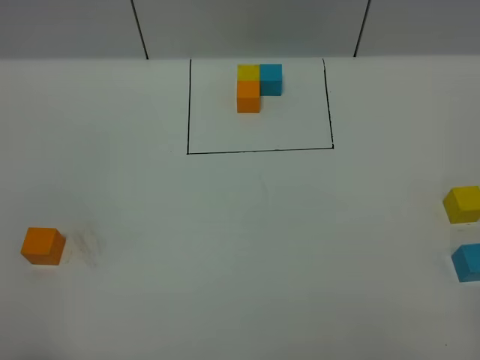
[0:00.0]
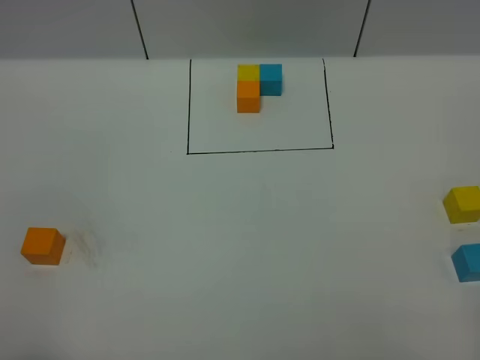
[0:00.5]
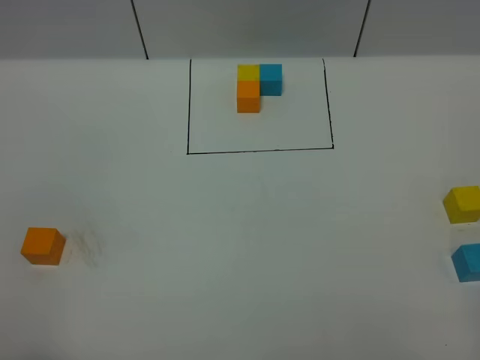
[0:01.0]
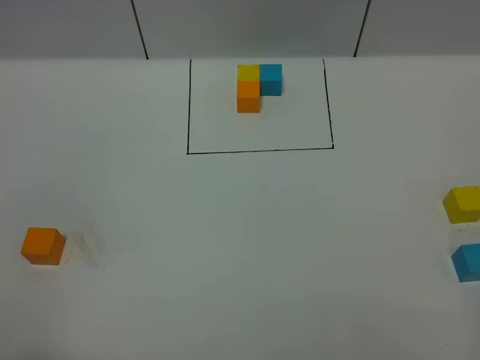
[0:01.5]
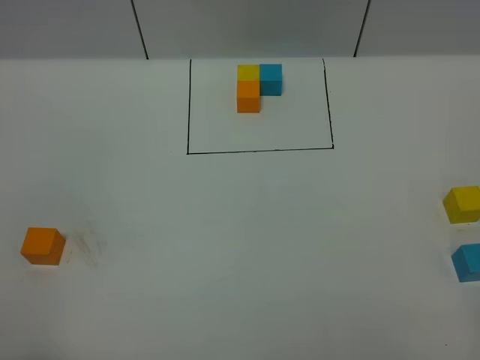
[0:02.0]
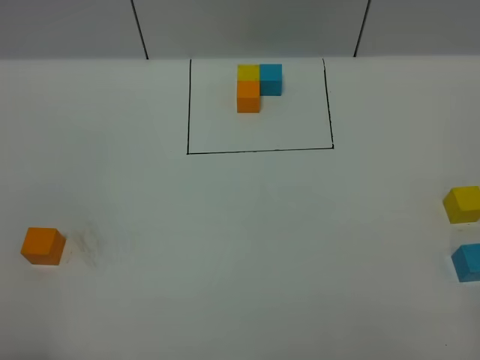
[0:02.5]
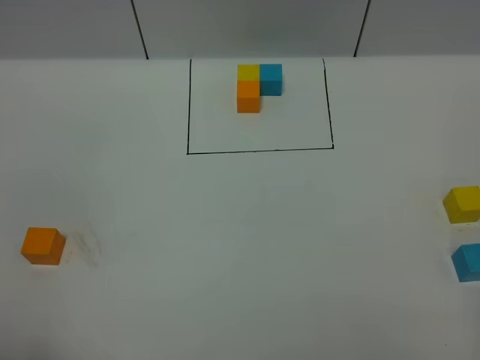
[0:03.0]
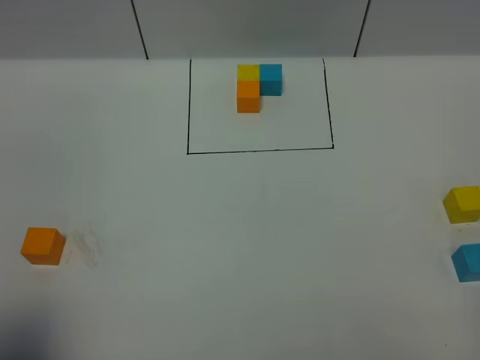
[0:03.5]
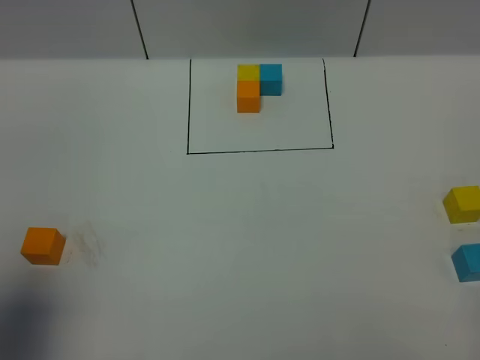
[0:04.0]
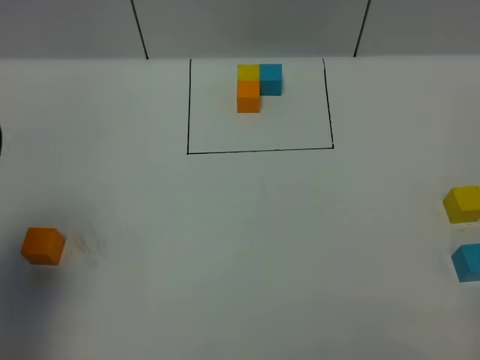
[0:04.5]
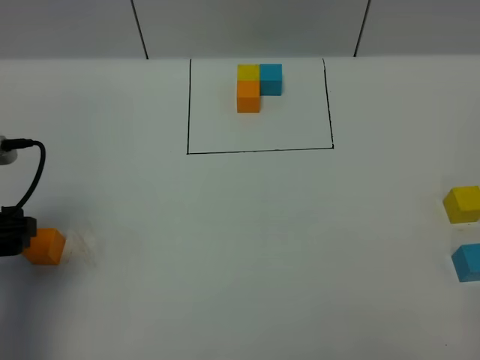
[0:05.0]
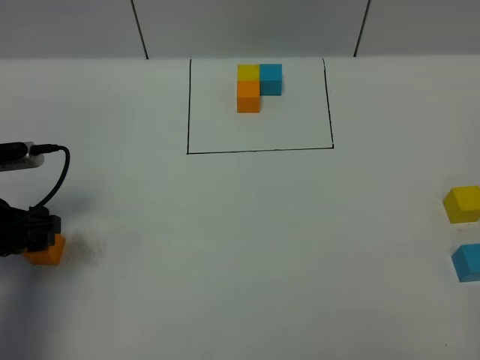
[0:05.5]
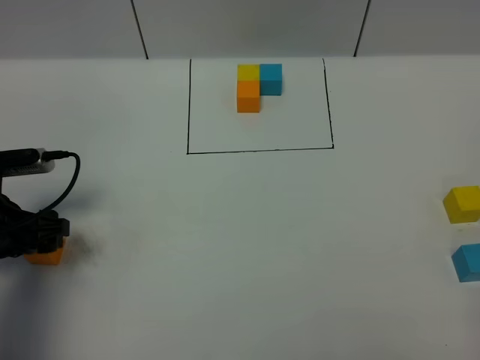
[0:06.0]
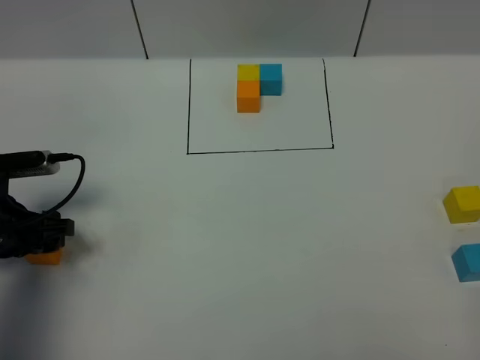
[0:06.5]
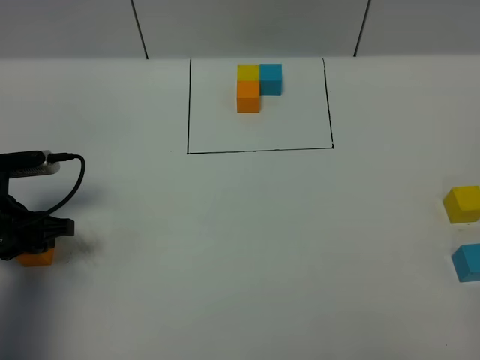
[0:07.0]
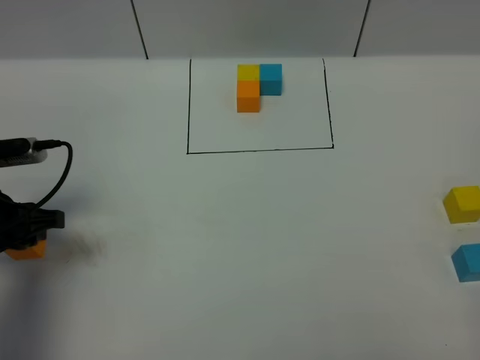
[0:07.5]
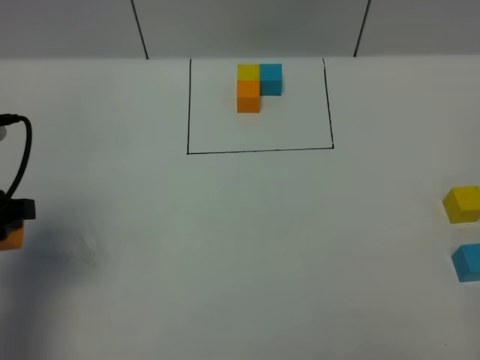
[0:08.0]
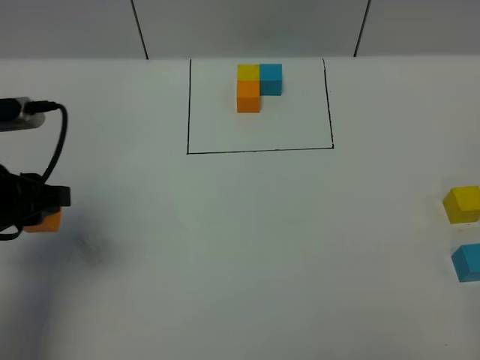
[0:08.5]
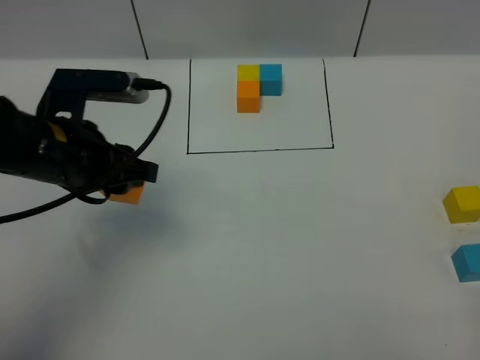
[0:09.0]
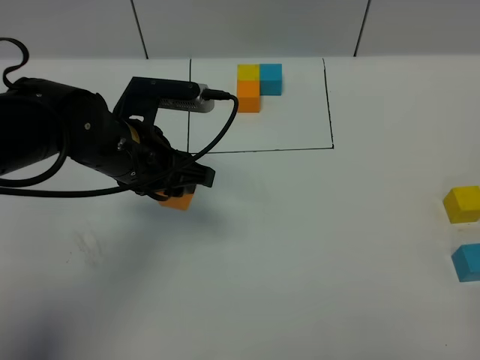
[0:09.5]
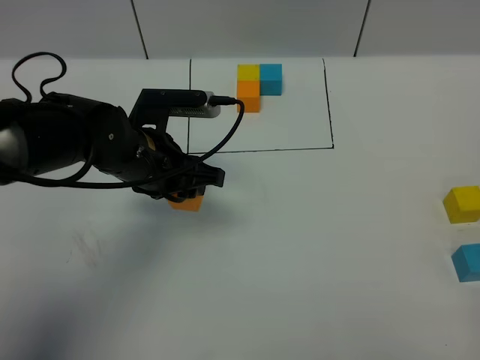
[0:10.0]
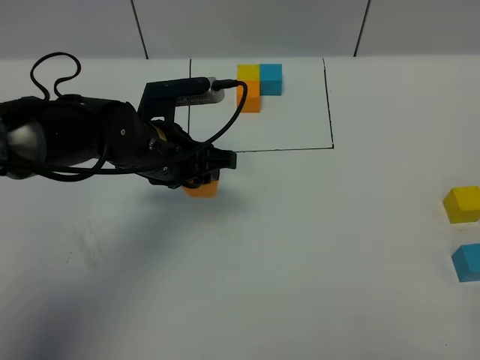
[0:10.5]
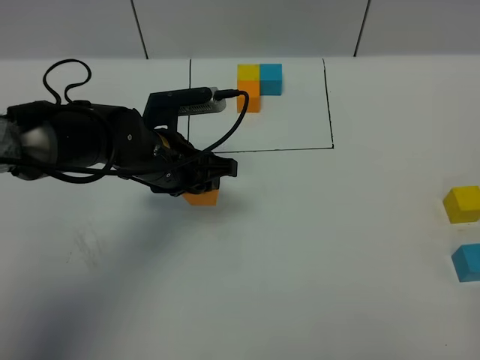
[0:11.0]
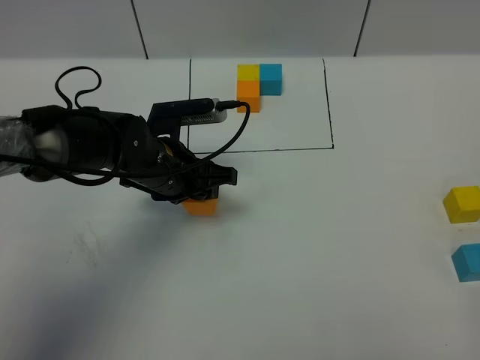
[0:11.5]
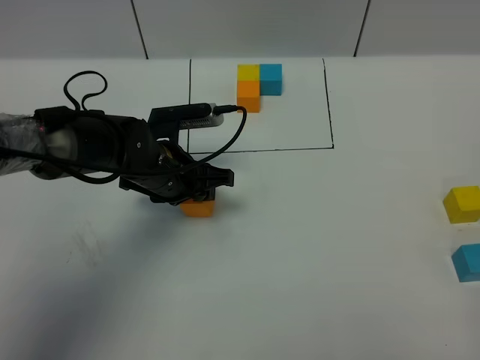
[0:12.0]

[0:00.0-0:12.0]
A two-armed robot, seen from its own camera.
Task of the whole recording: According to the building block template in front, assemble the scattered blocks together.
0.0 to 2.0 s: Both grippers stay put.
2.0 to 4.0 s: The left gripper goes some 10 cm forward, and opens.
4.0 to 6.0 s: The left gripper moves downward and forward, about 25 cm.
6.0 to 8.0 s: The left gripper heads upward, covering about 10 cm, and closes up.
8.0 to 10.0 s: The left gripper moves to the right and forward, about 20 cm.
10.0 to 12.0 s: The left gripper moves downward, some 5 cm.

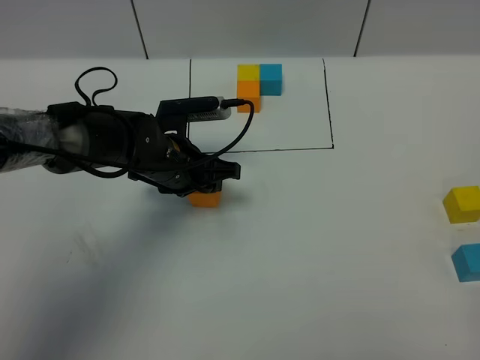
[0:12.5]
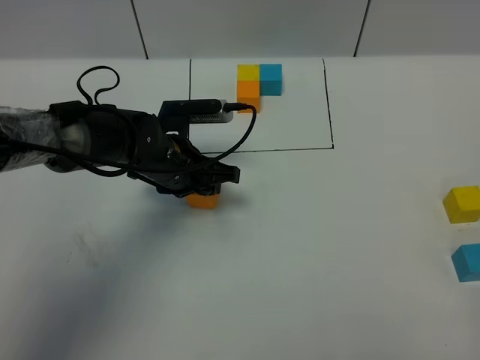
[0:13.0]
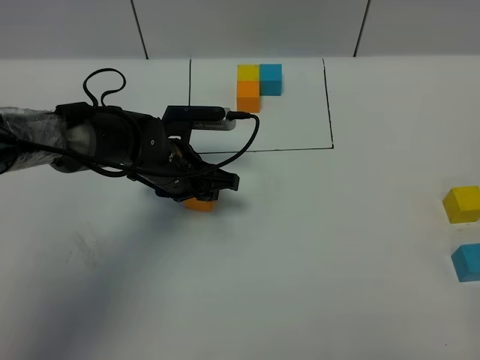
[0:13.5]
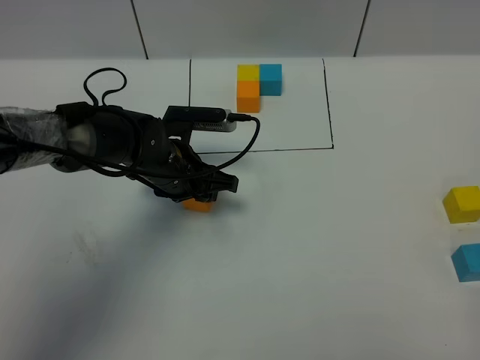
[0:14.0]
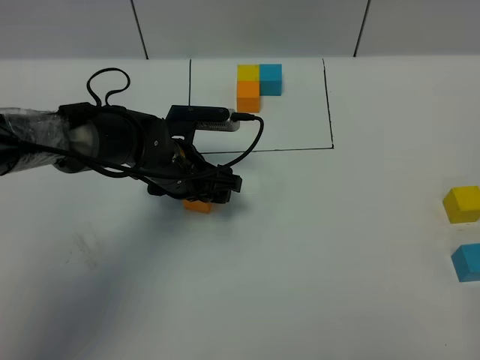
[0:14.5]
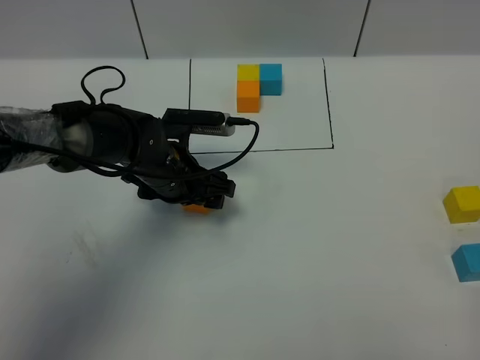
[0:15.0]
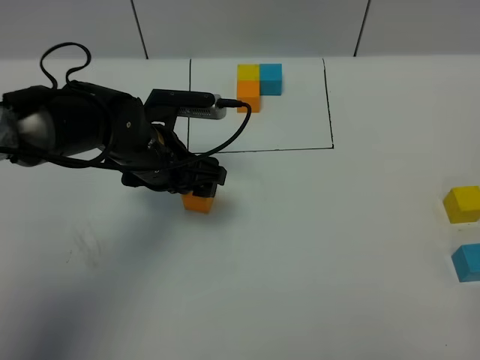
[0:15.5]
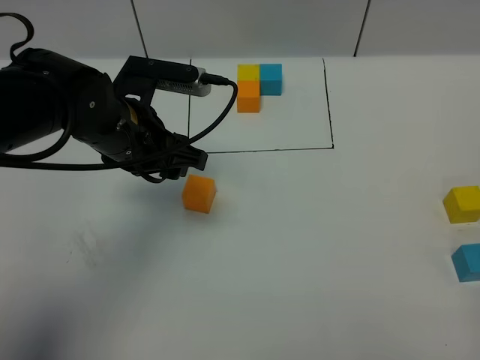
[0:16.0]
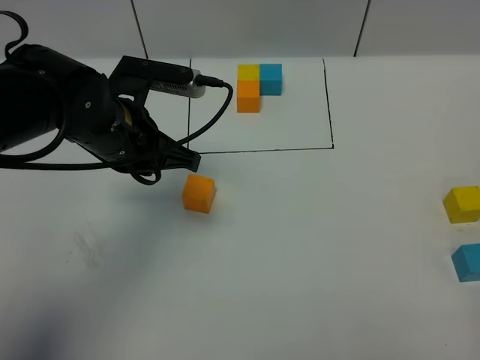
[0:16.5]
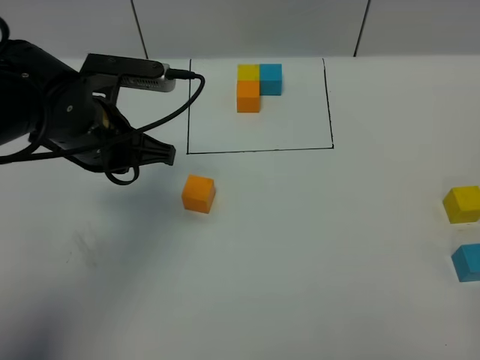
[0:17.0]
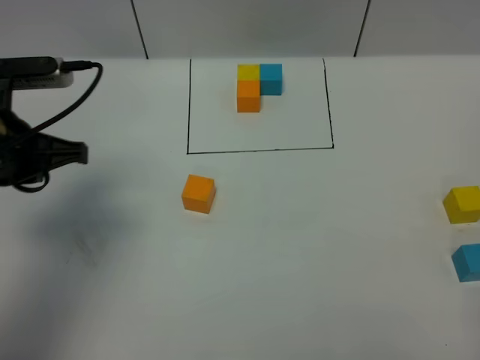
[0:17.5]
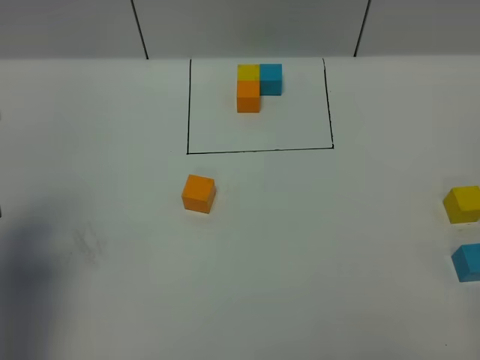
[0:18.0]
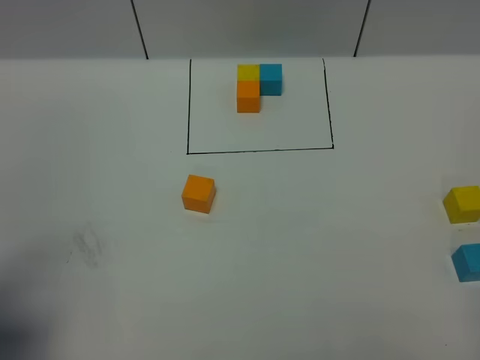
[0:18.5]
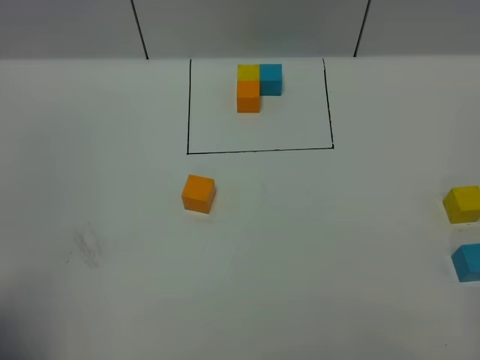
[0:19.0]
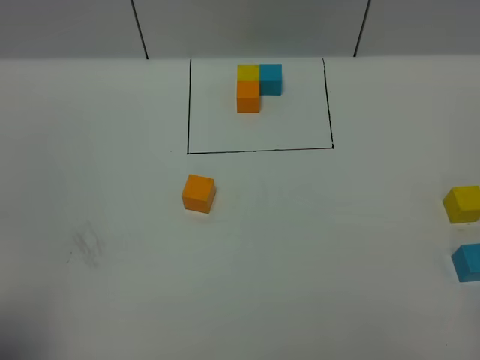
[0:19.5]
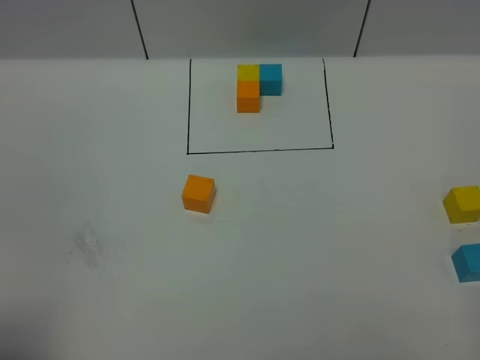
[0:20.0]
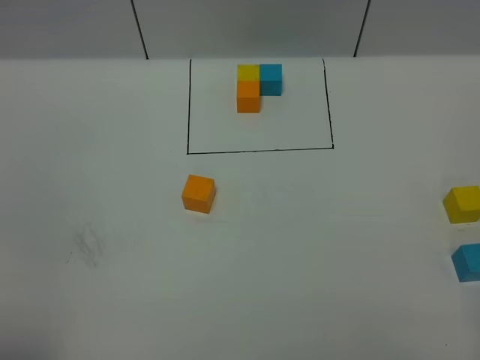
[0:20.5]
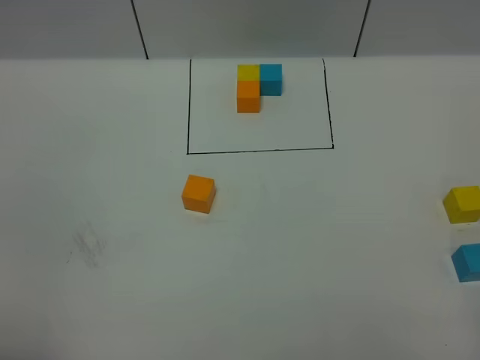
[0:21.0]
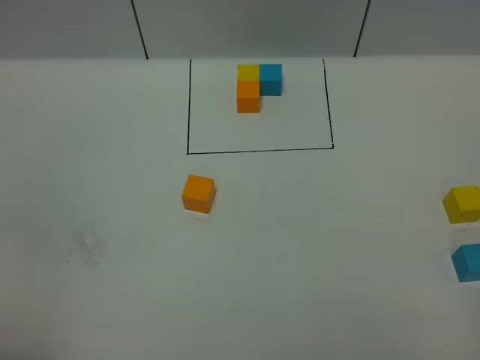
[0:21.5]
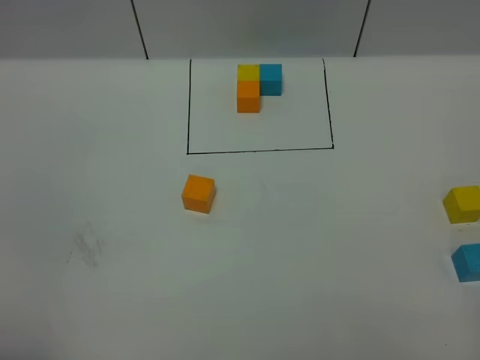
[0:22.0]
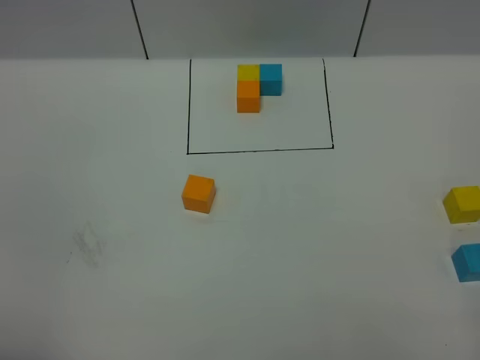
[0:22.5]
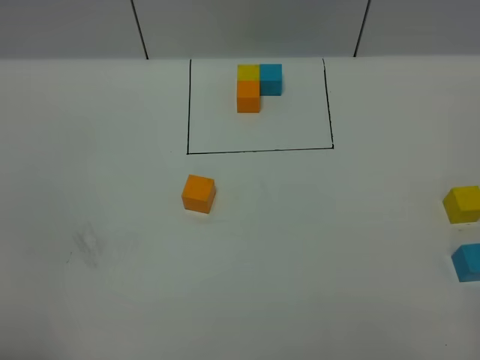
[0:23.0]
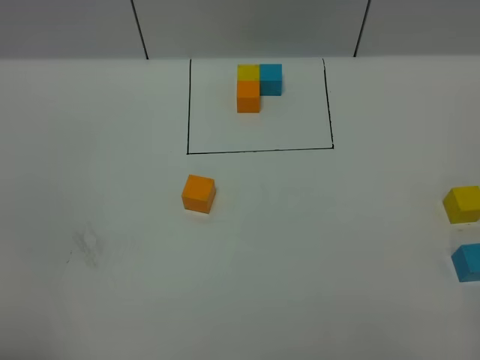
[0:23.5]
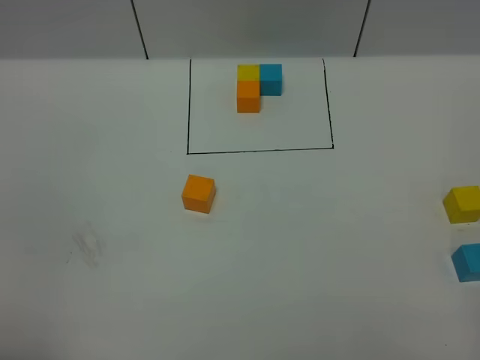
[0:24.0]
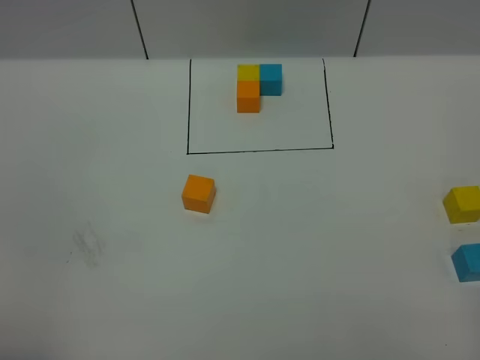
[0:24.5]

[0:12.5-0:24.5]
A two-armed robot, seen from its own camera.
Task of the whole recording: According to the building block template in front, assemble the scattered blocks together.
Step, 12.5 to 15.0 s: Put the orange cube in the center of the table.
12.5 to 14.5 s: The left gripper opens up.
14.5 to 16.5 s: The left gripper shifts some 10 cm upward, and closes.
16.5 to 18.5 s: The left gripper shifts roughly 30 cm backward and to the left.
18.5 to 20.5 s: The left gripper is displaced backward by approximately 10 cm.
20.5 to 24.5 s: Neither gripper changes place.

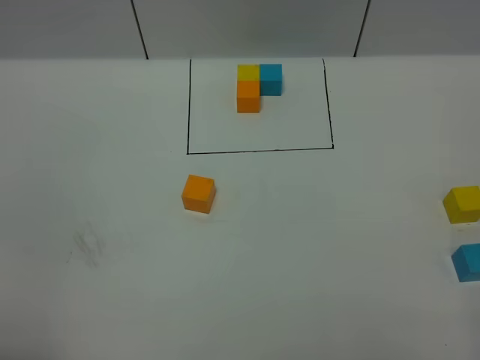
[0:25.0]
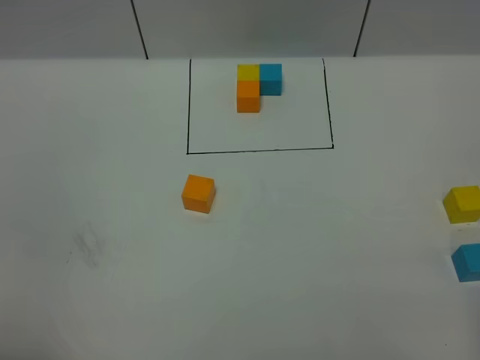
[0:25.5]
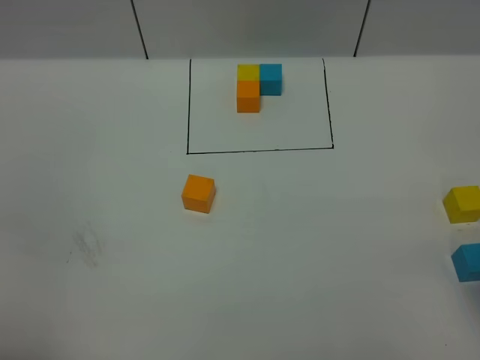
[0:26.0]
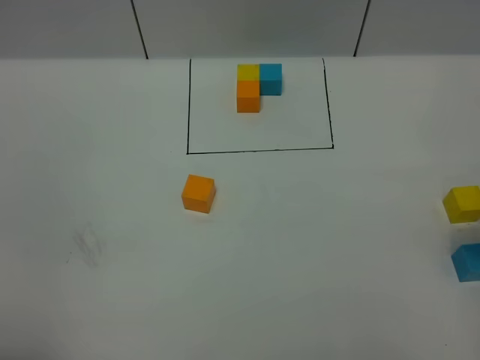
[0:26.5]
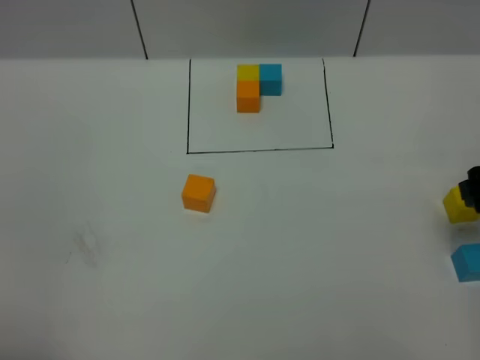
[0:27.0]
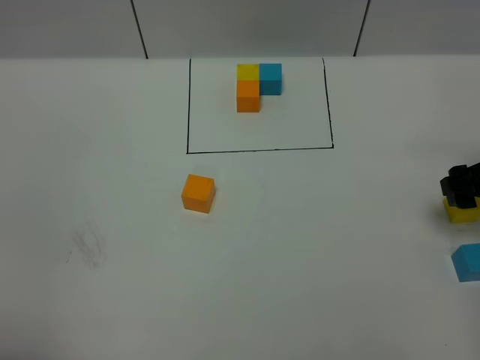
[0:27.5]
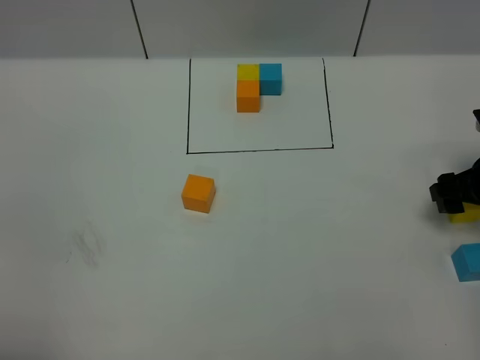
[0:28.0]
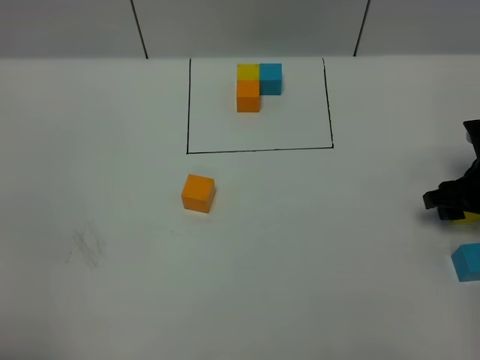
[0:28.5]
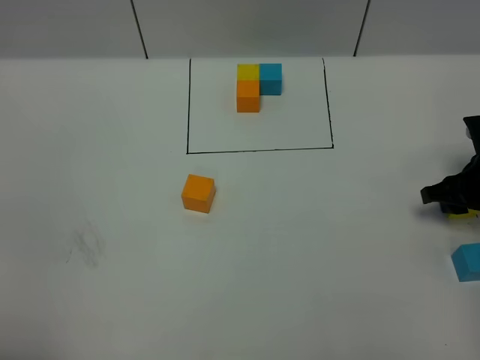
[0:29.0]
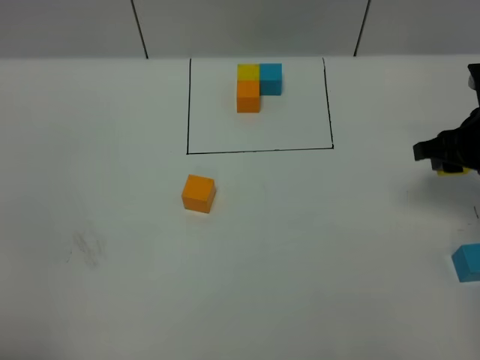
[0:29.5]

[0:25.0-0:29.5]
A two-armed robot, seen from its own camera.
Task of the whole recording: According to the building block template in front, assemble the scattered blocks together.
25.0 to 27.0 s: The right gripper moves forward, roughly 25 cm.
27.0 to 29.5 s: The right gripper moves forward, some 5 cm, goes downward and returns, some 10 cm each way, and closes up.
